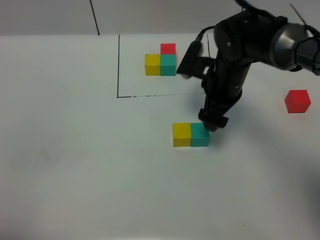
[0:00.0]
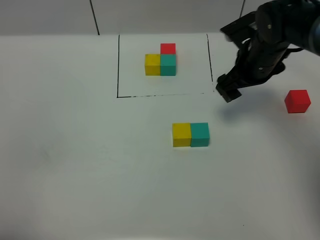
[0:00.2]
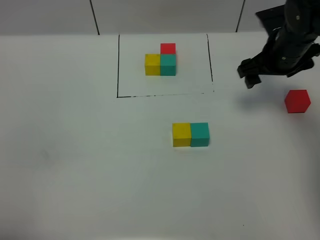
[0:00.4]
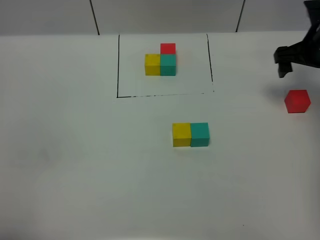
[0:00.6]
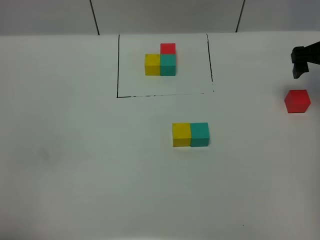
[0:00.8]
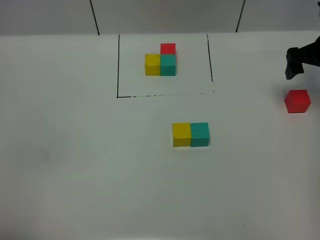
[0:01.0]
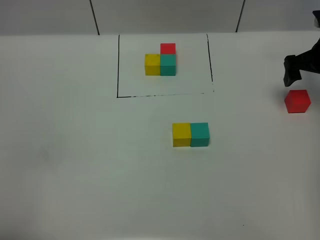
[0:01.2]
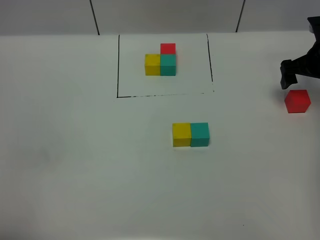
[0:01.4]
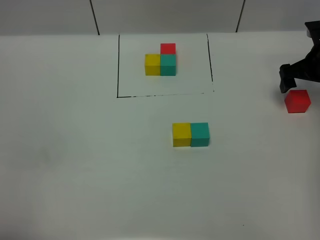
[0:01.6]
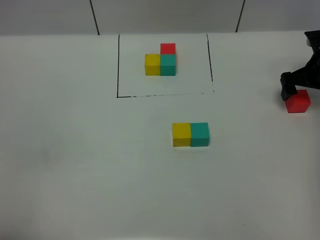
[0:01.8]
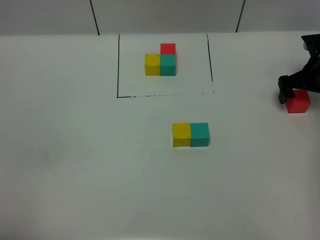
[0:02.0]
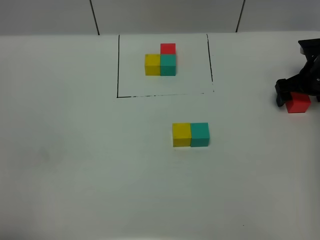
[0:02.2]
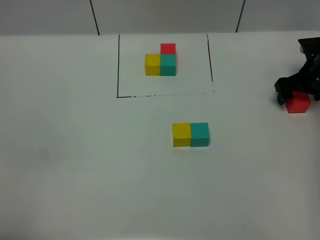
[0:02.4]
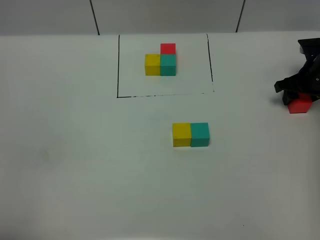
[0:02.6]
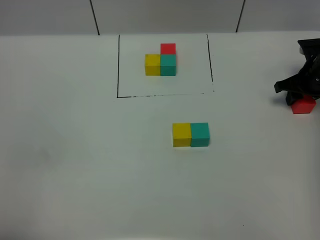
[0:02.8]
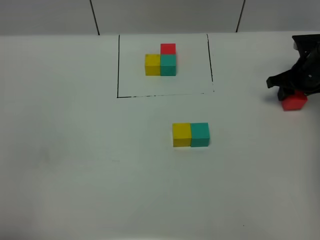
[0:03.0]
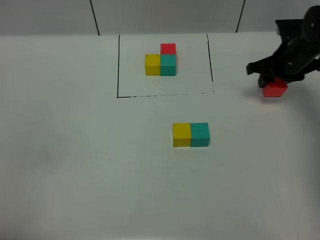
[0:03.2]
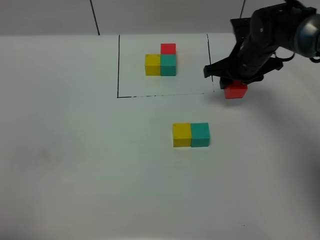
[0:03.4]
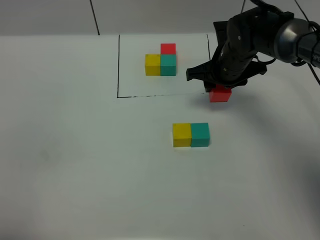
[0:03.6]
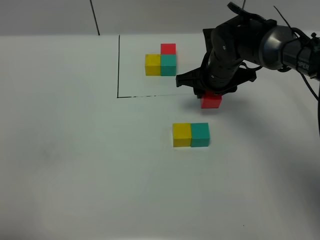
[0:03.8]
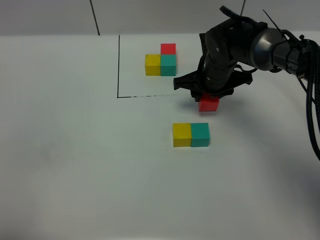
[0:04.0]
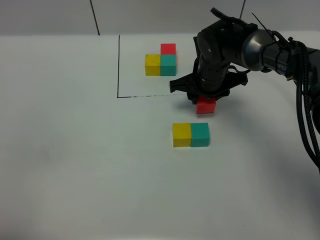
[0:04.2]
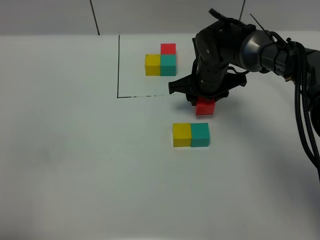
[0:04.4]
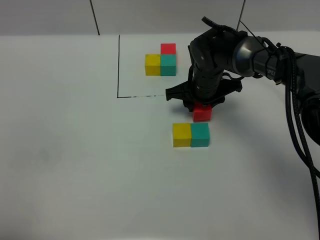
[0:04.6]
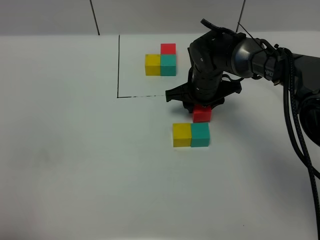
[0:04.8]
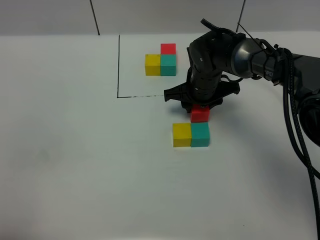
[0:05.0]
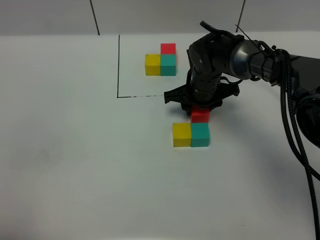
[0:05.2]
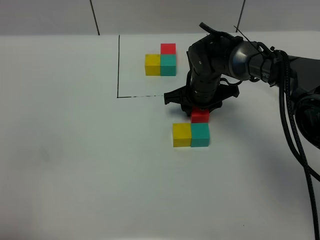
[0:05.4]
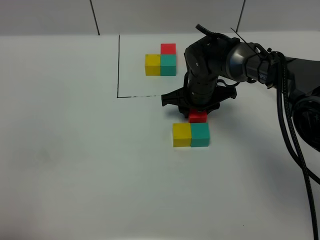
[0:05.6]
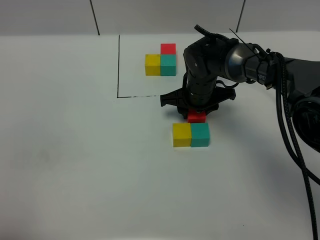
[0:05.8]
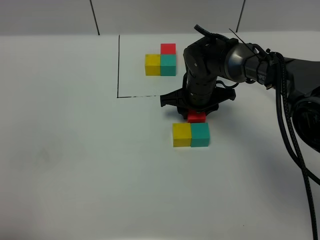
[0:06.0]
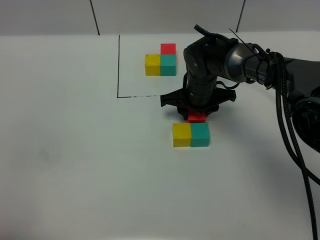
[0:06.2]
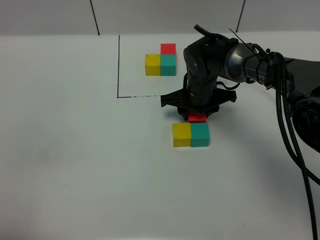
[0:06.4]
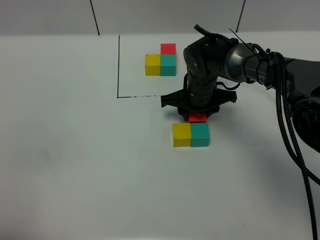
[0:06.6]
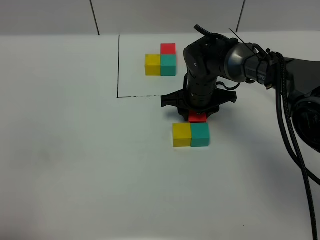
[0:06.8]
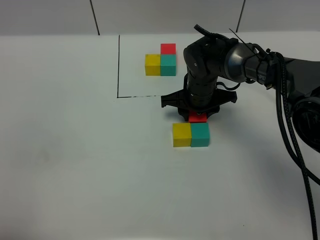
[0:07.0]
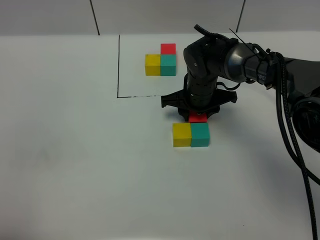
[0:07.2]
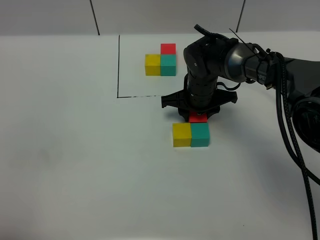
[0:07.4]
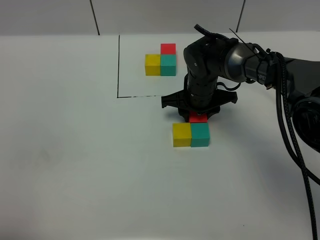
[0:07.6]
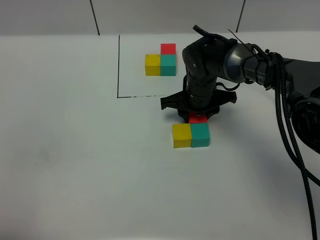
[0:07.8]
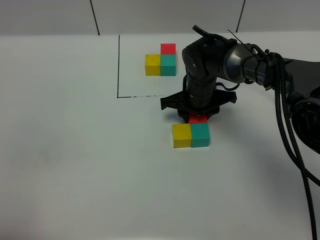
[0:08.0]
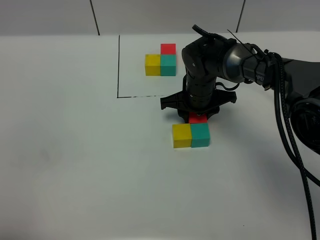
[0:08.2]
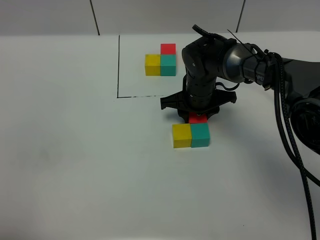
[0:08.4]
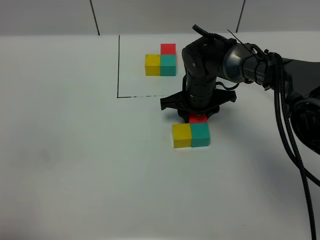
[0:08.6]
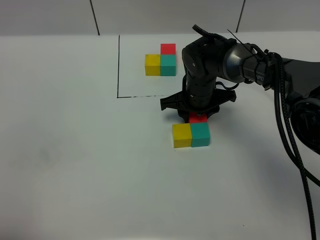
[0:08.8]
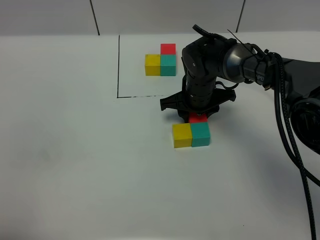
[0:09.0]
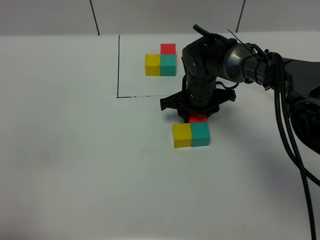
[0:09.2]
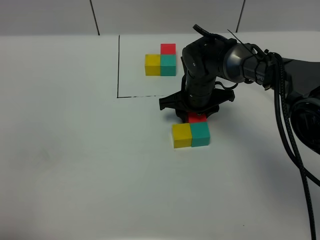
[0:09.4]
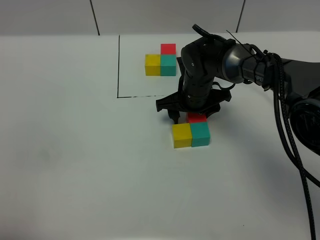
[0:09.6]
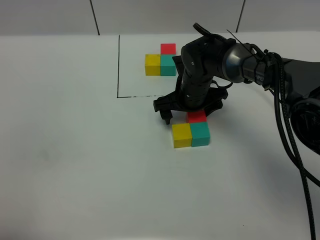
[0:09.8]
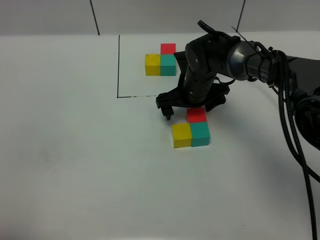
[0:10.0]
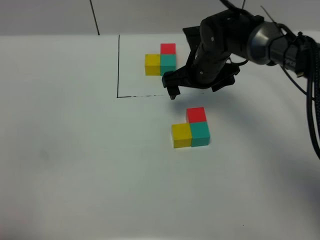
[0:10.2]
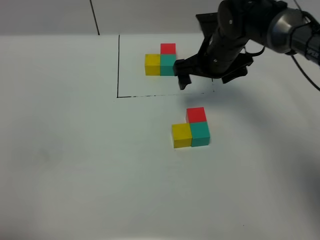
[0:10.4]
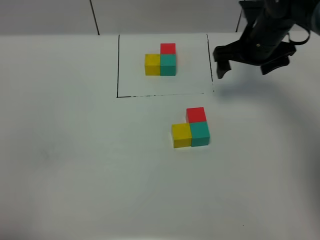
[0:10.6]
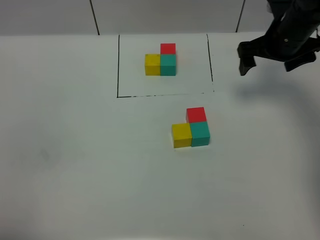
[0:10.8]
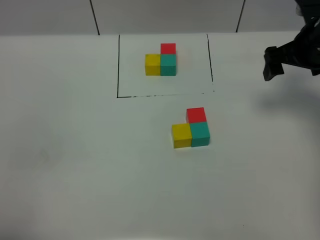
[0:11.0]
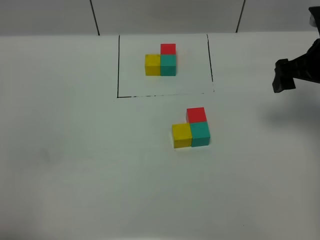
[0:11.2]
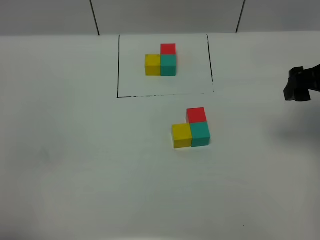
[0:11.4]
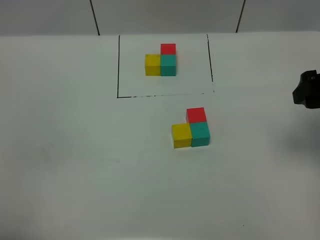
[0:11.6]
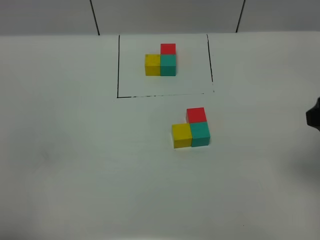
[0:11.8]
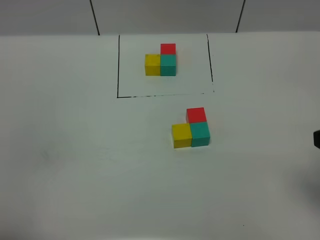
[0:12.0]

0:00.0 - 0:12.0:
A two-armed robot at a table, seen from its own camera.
Task of the whole recording: According to the building block template in front, assemble the scattered blocks together.
Step, 0:00.0 - 0:09.8: Put the red build block on the green build block.
0:00.0 - 0:01.6: The right gripper goes roughly 20 cm to the right.
0:01.6 - 0:03.0: The right gripper closes its fingers.
0:03.0 - 0:04.4: The right gripper heads to the left, covering roughly 20 cm.
0:04.4 - 0:06.0: There are only small adjustments of the grippers.
0:06.0 - 0:09.0: Neither gripper changes place.
0:09.0 - 0:10.4: The right gripper is displaced upward and to the right by approximately 10 cm, and opens its fingers.
0:10.4 - 0:12.0: The right gripper moves backward and to the right, about 35 cm.

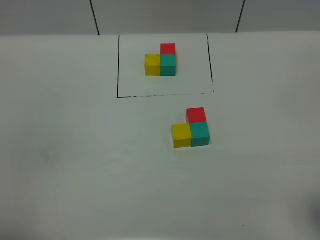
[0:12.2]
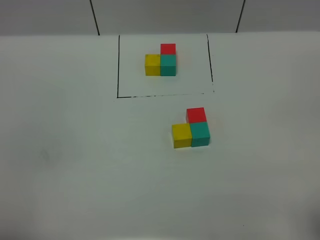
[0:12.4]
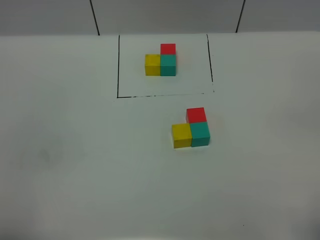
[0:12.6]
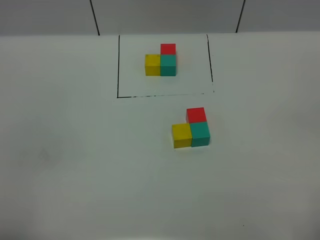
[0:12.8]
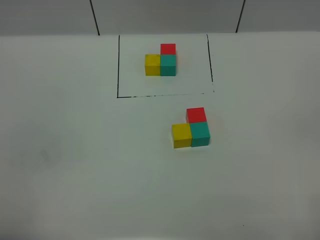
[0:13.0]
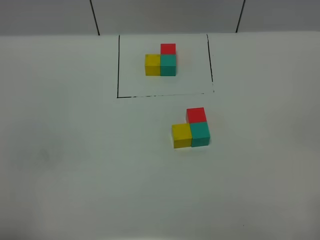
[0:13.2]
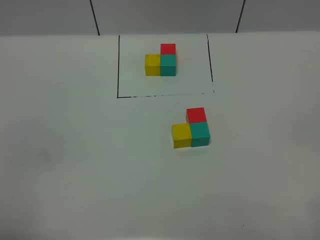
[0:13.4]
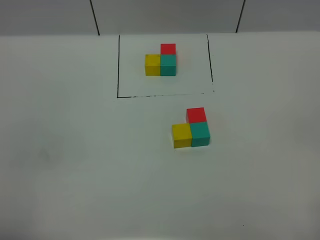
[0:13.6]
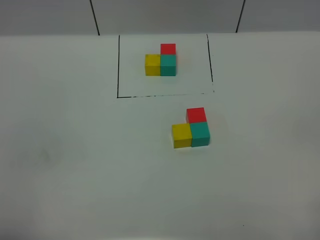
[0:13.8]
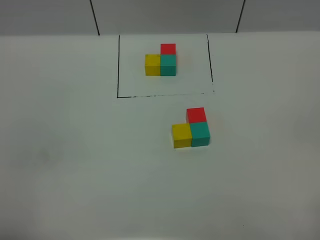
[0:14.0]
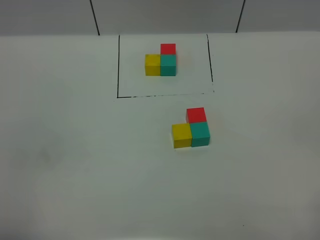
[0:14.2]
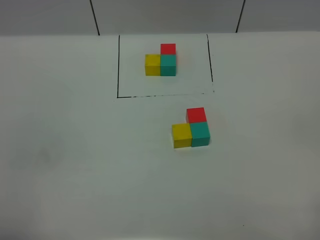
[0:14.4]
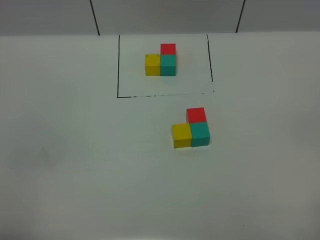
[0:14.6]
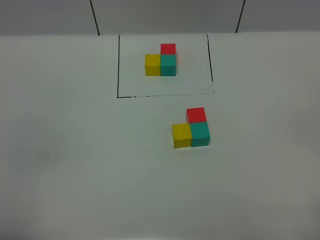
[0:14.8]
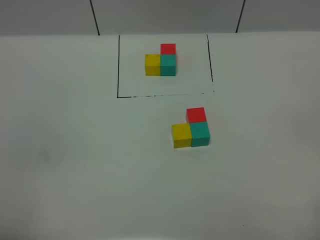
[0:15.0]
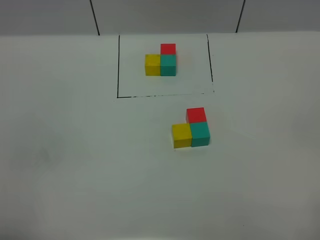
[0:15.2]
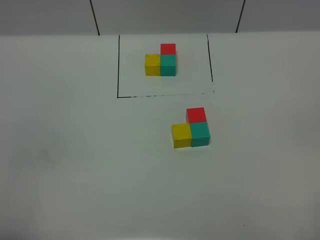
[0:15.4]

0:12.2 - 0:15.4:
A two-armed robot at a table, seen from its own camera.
Task of the whole recording: According to the building block template in front, assemble the scattered blocks together.
0:13.8 - 0:15.4: Both grippers stay put.

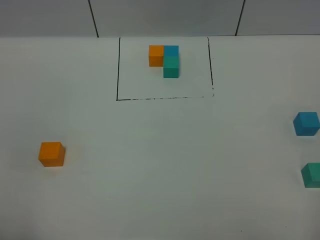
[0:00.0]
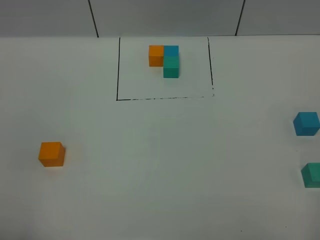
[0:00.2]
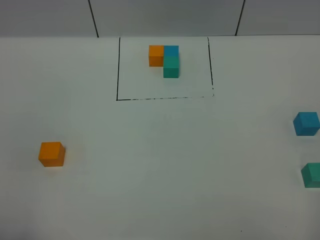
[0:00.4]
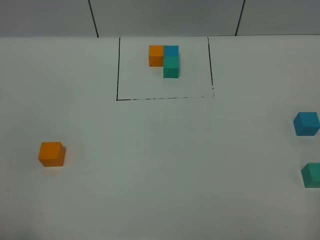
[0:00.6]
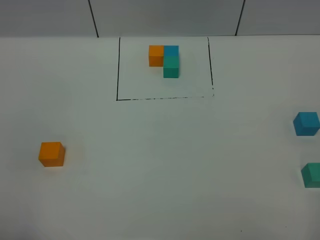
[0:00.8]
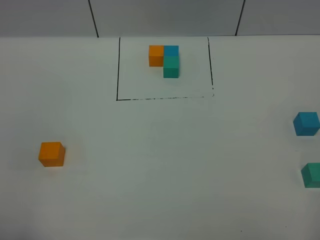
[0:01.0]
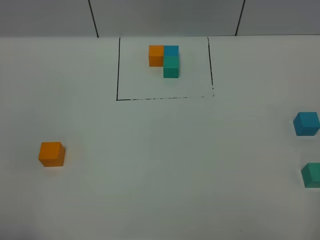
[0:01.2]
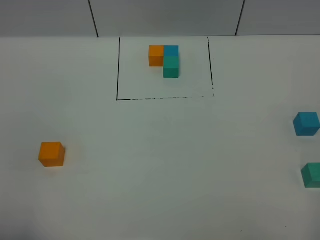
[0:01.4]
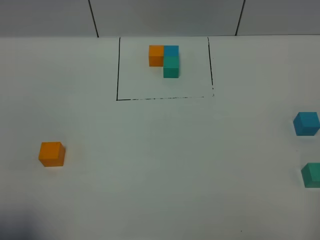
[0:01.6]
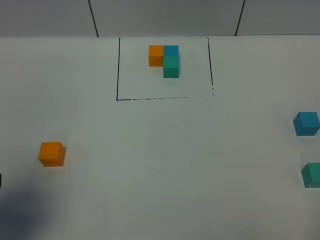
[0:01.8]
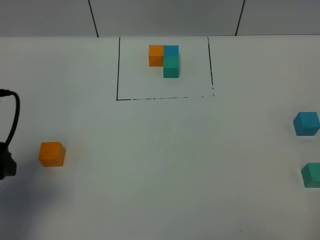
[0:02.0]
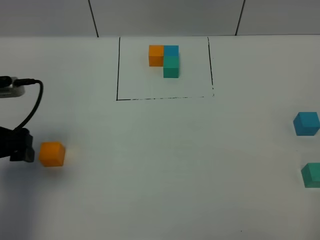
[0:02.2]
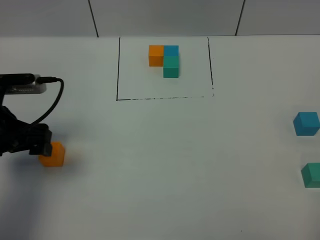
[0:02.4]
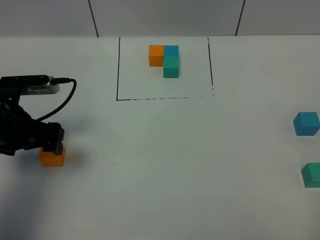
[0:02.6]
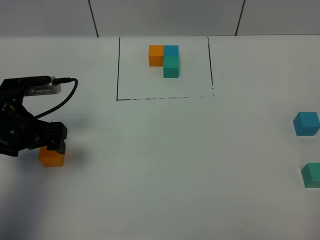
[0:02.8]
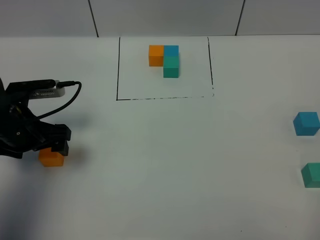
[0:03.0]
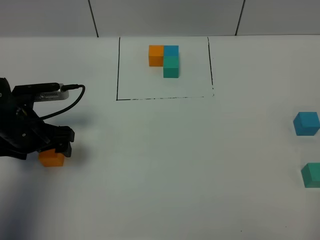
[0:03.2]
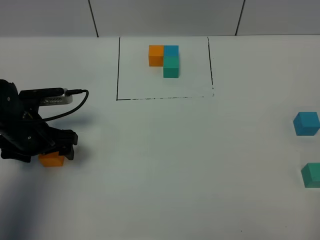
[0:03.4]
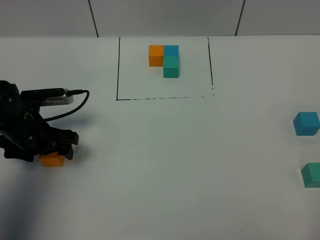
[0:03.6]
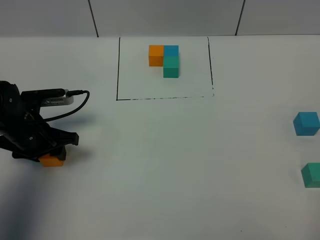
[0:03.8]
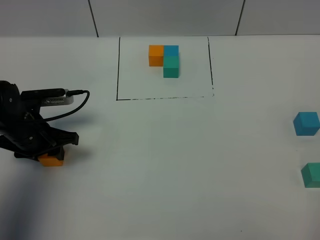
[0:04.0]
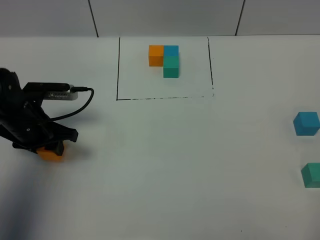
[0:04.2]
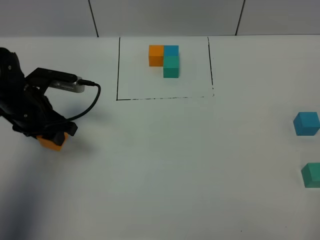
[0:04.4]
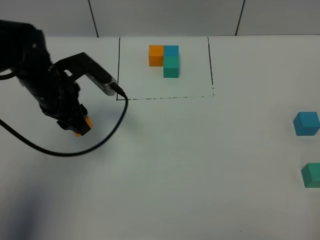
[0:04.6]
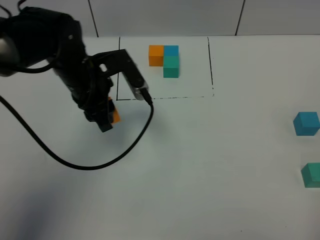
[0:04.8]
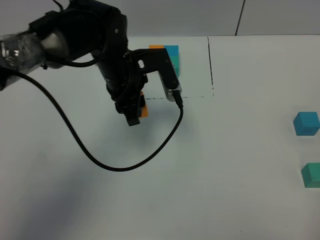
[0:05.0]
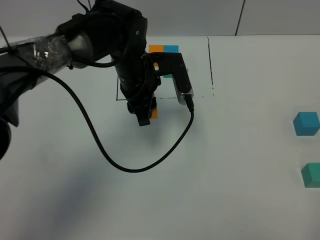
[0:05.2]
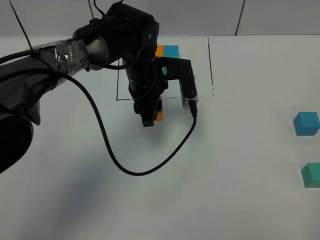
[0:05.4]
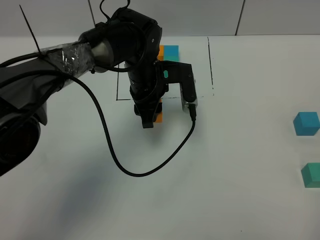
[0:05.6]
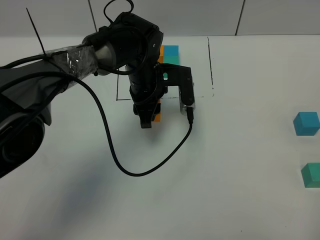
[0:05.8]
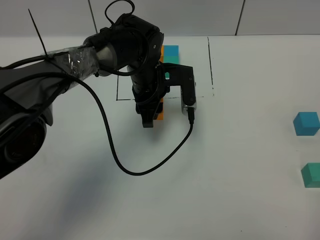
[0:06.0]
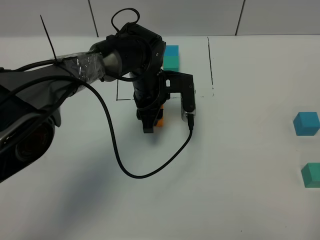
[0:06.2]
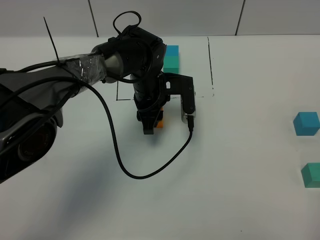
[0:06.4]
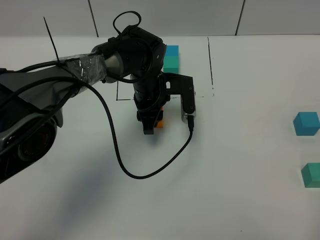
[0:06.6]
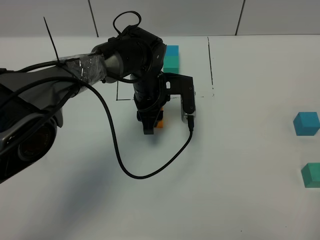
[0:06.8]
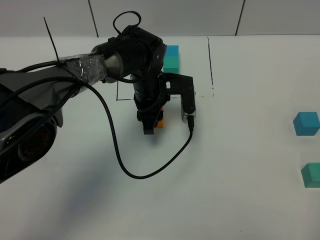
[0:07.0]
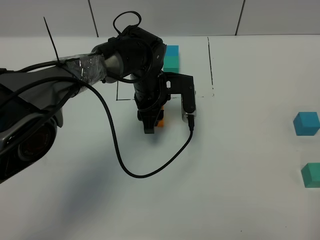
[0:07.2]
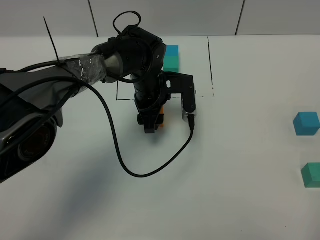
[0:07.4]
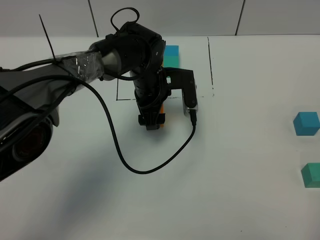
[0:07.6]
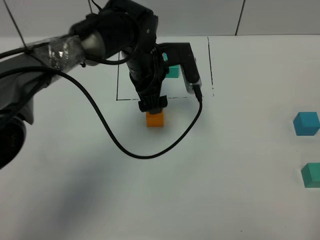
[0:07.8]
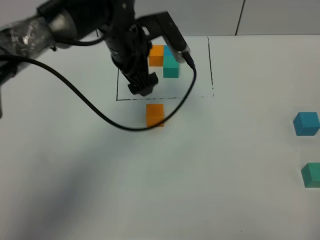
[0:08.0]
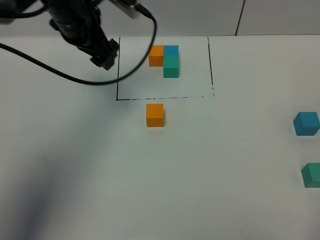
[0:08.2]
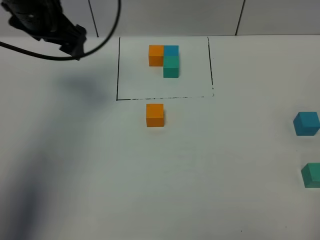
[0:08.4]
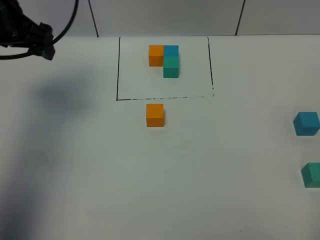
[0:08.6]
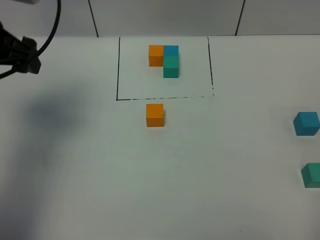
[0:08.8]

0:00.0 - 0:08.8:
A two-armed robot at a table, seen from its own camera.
Task of the whole recording: According to the building block template in front, assemble the scattered blocks together.
Step, 0:00.0 - 0:07.4: Put the orange build block in the center of the table.
0:00.0 - 0:01.4: Neither gripper changes place.
0:01.4 - 0:03.0: The left gripper is displaced forward and downward by some 30 cm.
0:03.0 - 0:04.4: The left gripper closes.
0:04.4 - 0:05.8: The left gripper goes about 20 cm to the right.
0:05.8 - 0:07.4: The left gripper opens its fingers.
0:07.4 - 0:08.8: The left gripper moves to the left and upward, some 30 cm, and opens its fingers.
